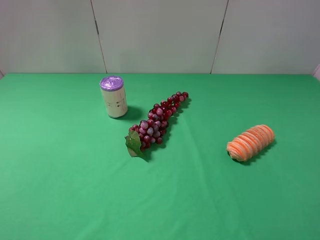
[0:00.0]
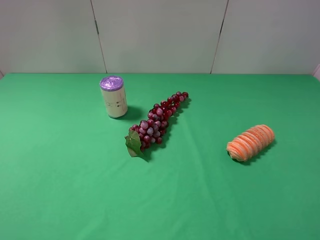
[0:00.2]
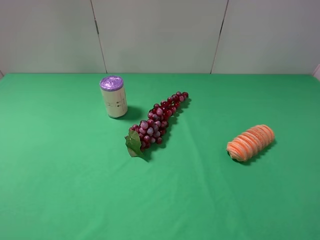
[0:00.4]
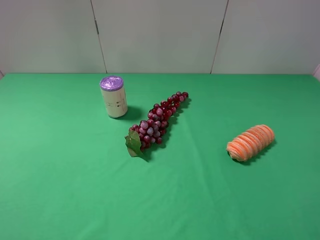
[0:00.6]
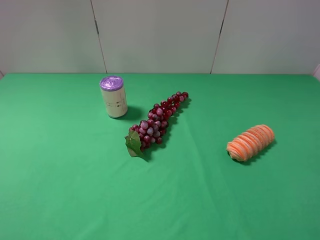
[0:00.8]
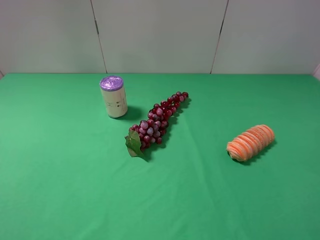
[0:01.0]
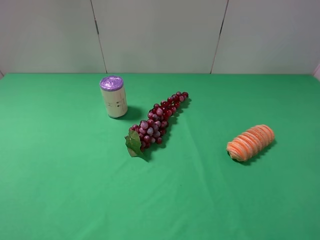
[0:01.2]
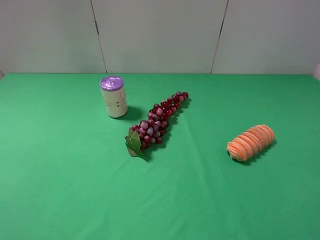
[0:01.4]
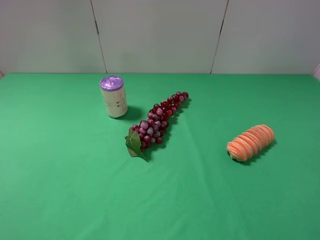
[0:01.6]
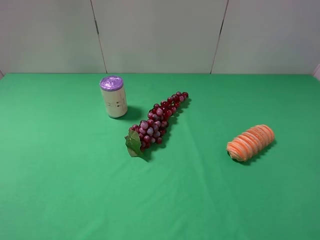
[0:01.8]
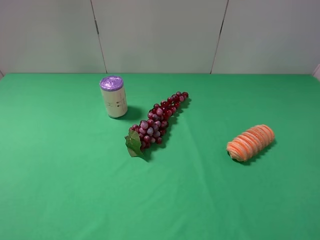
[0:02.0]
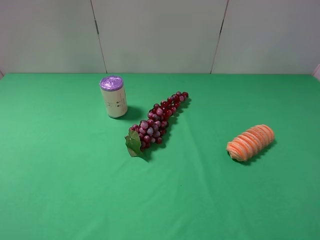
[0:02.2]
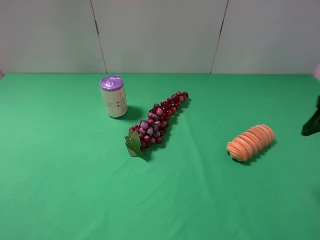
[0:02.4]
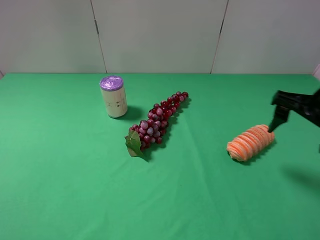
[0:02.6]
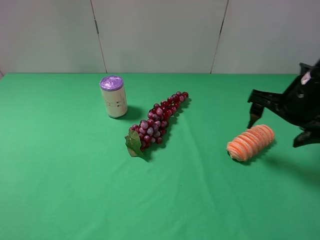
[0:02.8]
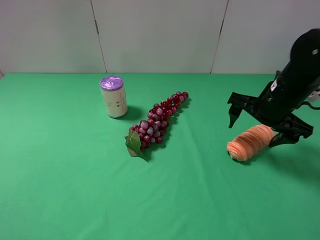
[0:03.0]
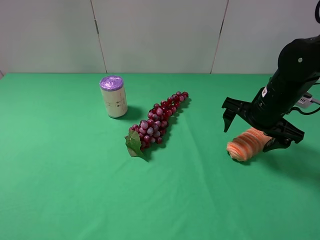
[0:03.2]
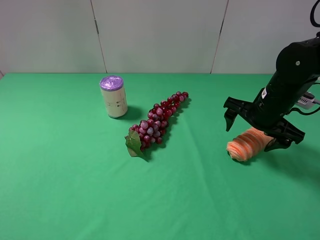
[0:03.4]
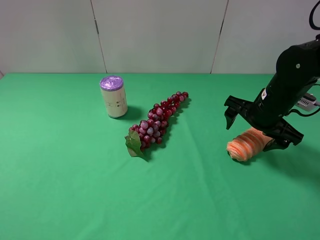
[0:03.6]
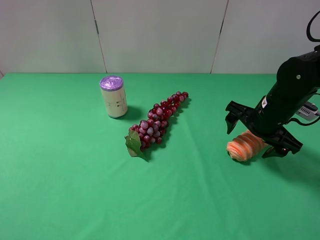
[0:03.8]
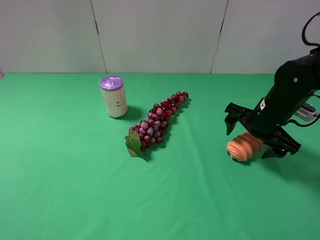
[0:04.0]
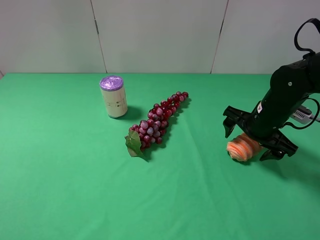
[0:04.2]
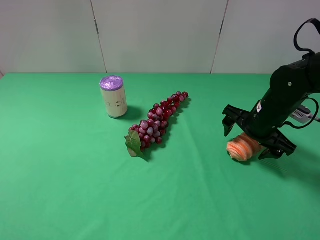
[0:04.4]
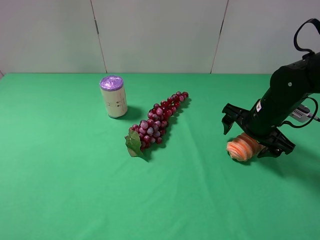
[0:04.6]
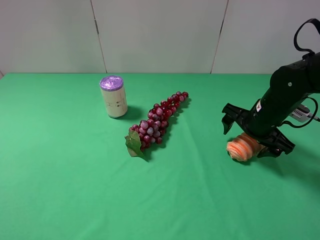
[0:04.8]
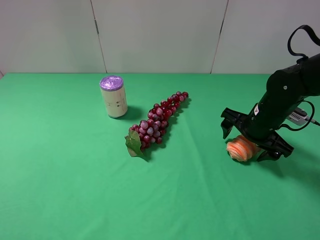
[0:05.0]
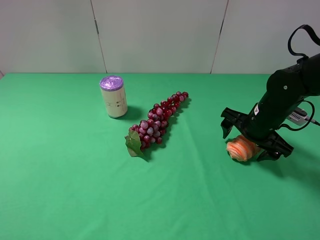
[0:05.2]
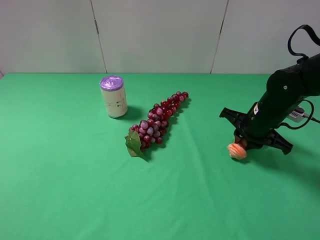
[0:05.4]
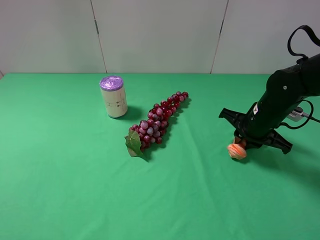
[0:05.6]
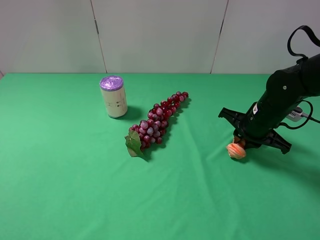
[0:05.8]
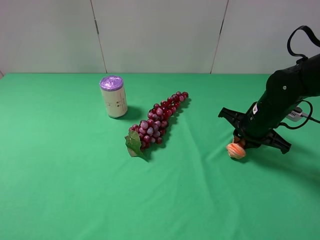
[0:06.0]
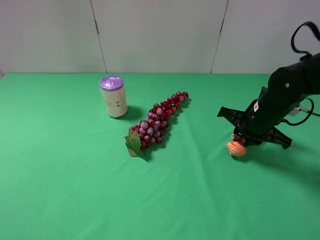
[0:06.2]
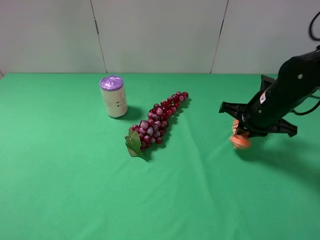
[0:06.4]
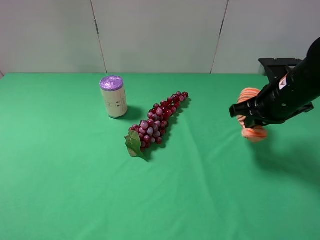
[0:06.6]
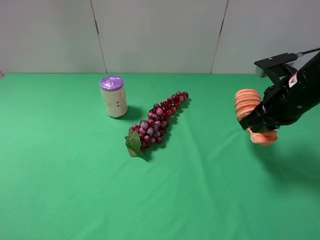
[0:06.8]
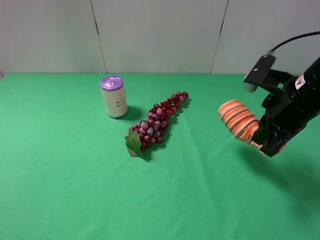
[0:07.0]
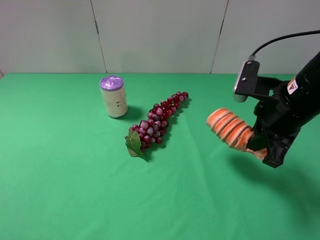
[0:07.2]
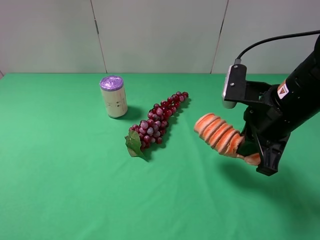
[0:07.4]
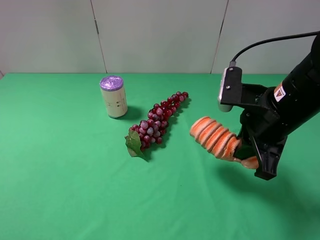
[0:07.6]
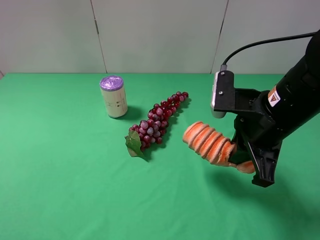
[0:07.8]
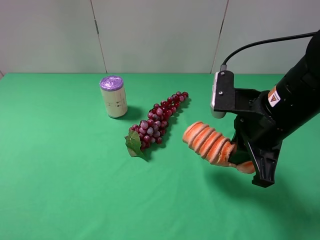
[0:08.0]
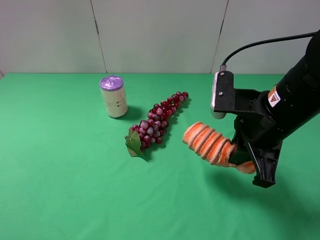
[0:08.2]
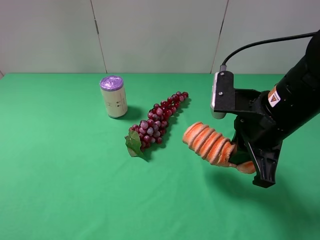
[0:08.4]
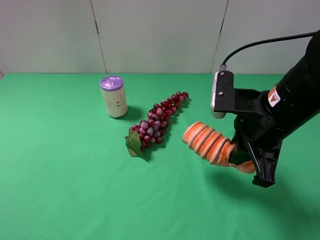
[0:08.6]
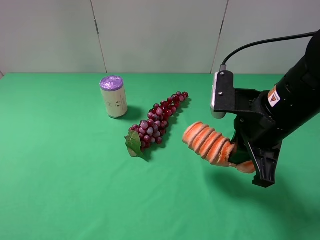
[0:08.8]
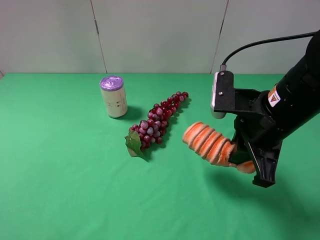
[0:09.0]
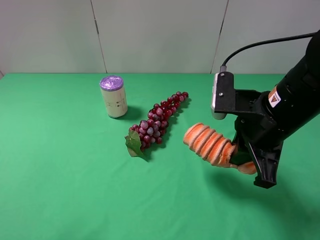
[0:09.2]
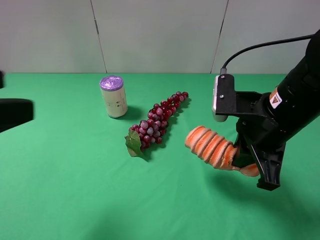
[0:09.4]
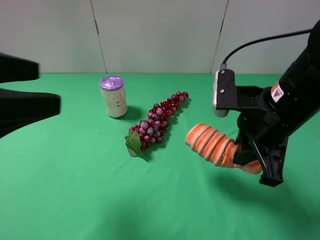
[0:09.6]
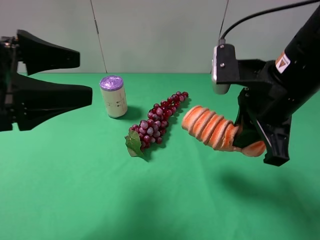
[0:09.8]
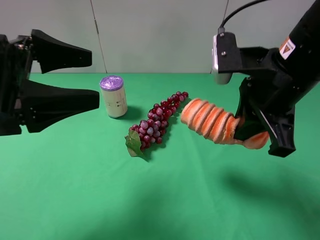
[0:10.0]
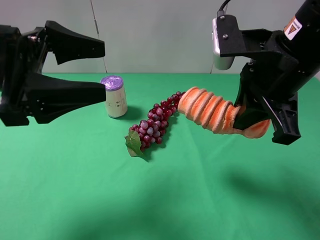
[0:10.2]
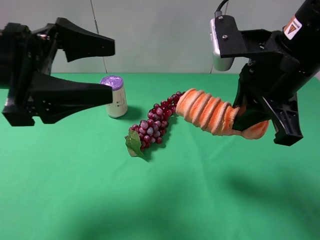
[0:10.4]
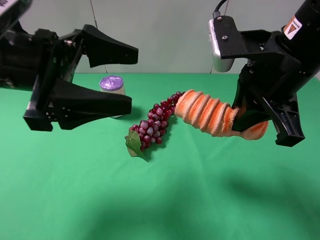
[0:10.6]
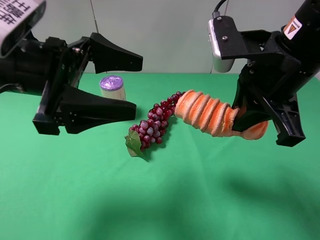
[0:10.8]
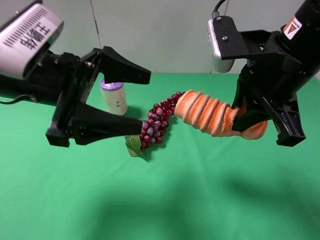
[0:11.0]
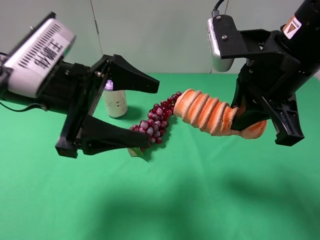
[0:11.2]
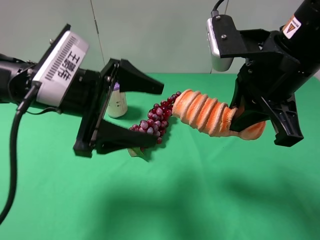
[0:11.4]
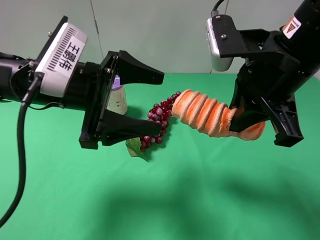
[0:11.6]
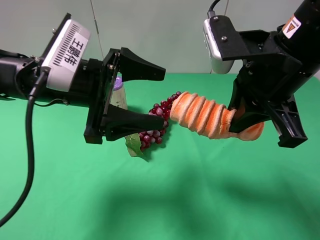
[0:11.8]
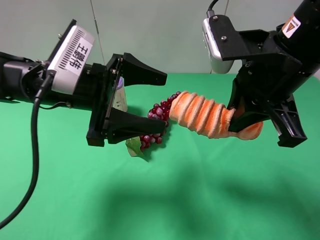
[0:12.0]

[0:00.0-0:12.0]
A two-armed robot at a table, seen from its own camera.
Task of the whole recording: use the right gripper to pick up the item and transfer it from the right gripper to the left gripper.
Step, 0:00.0 to 0:05.6: Use the right gripper to grab the bread on the right side of the table.
0:00.0 to 0:01.6: Neither gripper changes place.
0:01.6 to 0:03.0: The right gripper goes about 25 cm forward.
0:03.0 to 0:04.4: The grippers move only a little.
0:04.4 to 0:06.0: The right gripper closes.
0:06.0 to 0:07.6: The right gripper is displaced upward and backward by about 15 cm.
0:07.6 to 0:09.0: The grippers make only small movements.
0:09.0 to 0:10.4: The left gripper is displaced forward and to the right by roughly 20 cm. The right gripper shifts approximately 10 cm upward.
0:10.4 to 0:12.0: The left gripper heads to the right and downward, covering about 10 cm.

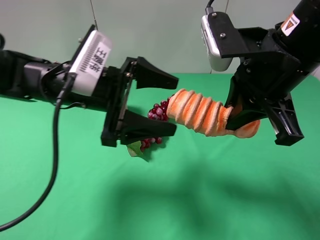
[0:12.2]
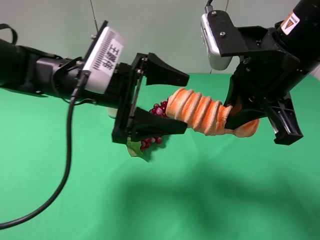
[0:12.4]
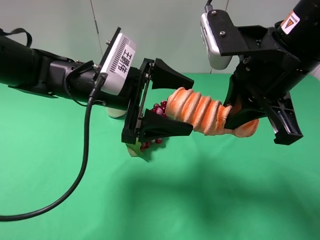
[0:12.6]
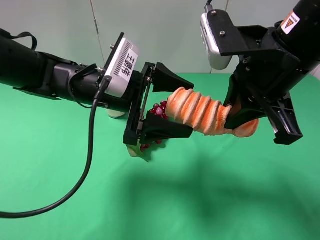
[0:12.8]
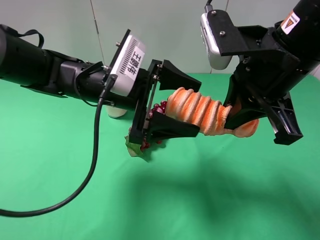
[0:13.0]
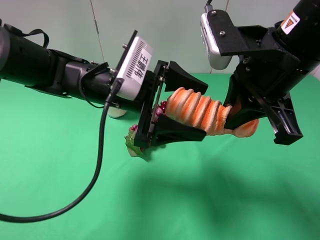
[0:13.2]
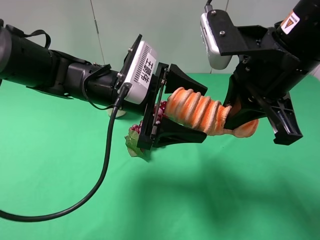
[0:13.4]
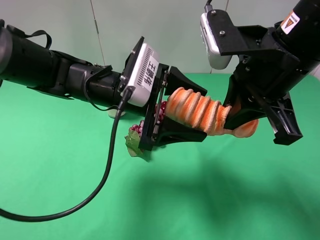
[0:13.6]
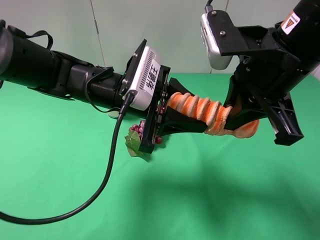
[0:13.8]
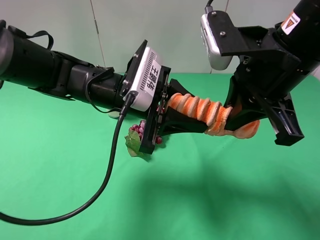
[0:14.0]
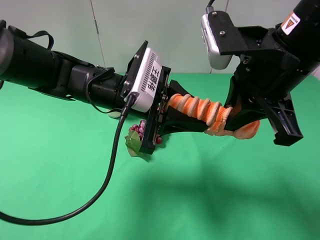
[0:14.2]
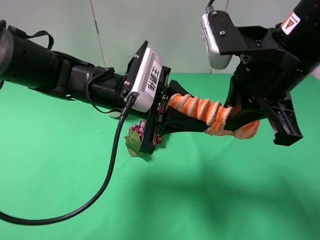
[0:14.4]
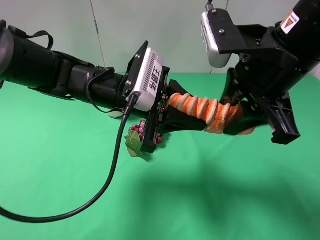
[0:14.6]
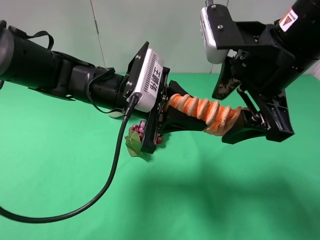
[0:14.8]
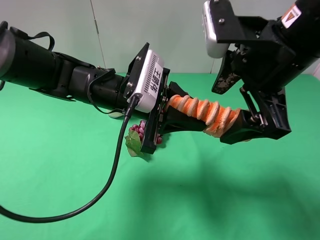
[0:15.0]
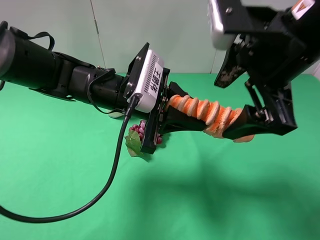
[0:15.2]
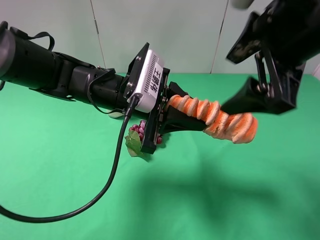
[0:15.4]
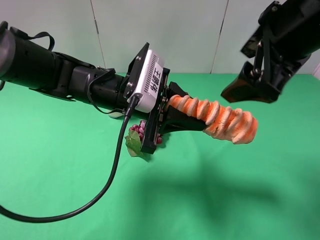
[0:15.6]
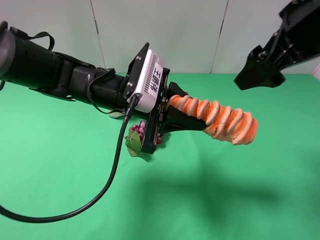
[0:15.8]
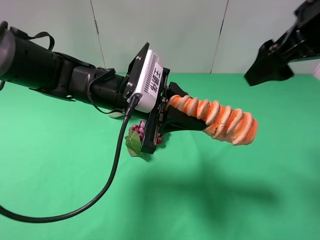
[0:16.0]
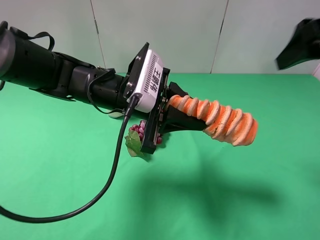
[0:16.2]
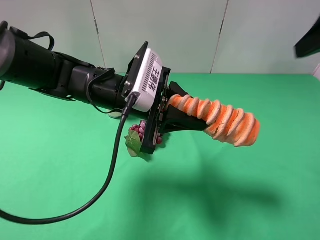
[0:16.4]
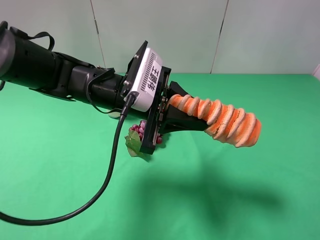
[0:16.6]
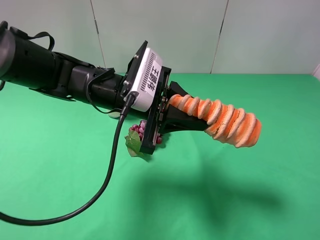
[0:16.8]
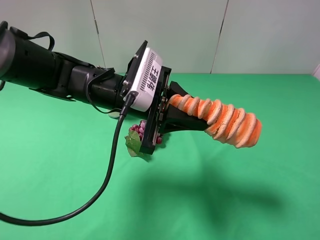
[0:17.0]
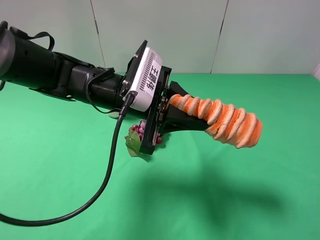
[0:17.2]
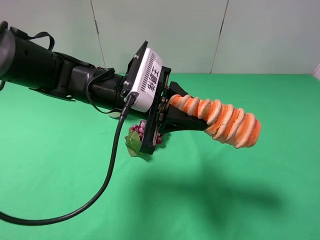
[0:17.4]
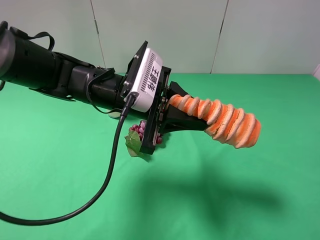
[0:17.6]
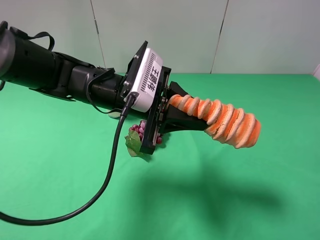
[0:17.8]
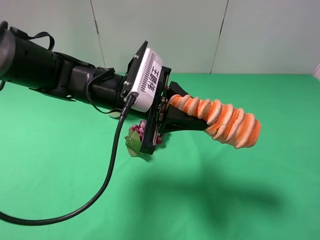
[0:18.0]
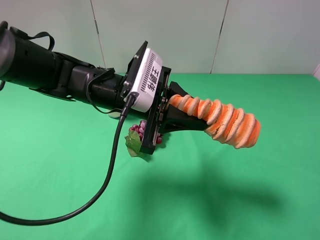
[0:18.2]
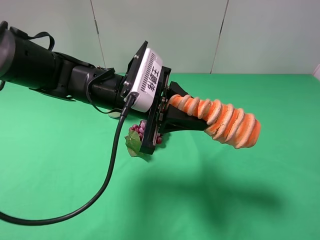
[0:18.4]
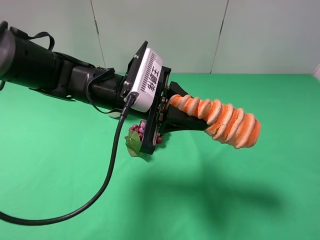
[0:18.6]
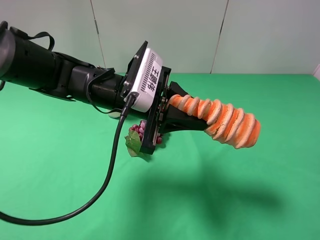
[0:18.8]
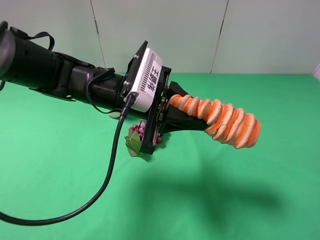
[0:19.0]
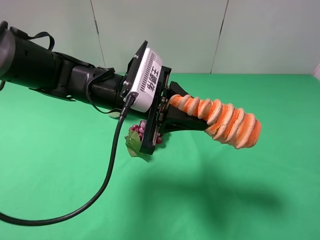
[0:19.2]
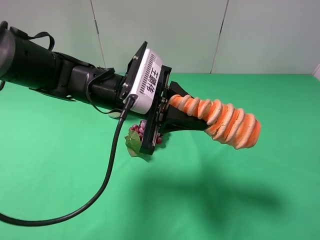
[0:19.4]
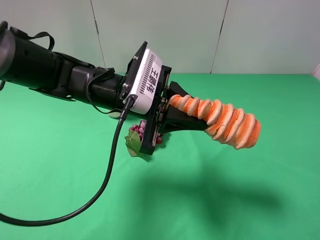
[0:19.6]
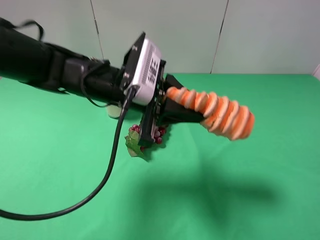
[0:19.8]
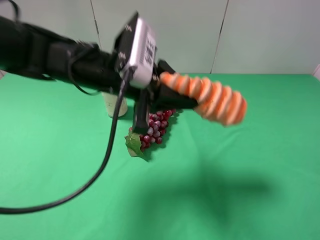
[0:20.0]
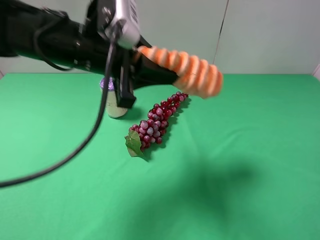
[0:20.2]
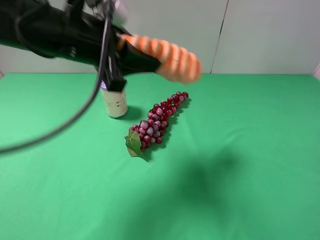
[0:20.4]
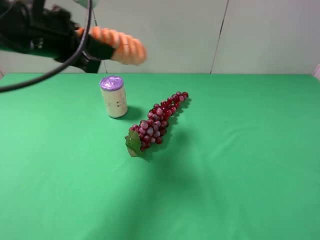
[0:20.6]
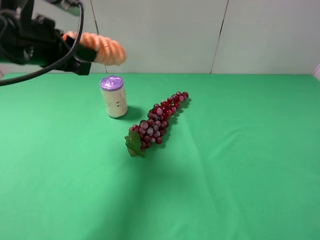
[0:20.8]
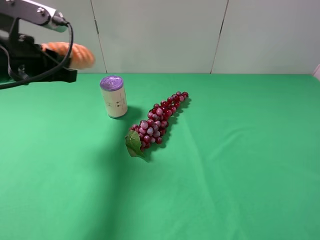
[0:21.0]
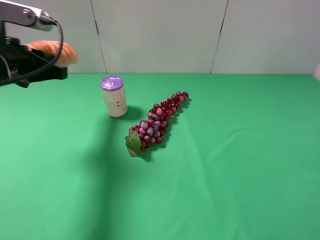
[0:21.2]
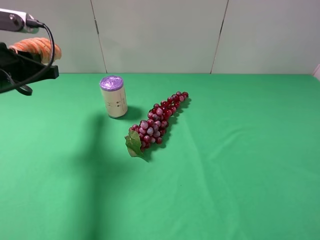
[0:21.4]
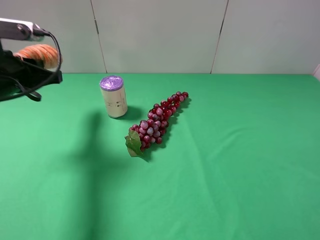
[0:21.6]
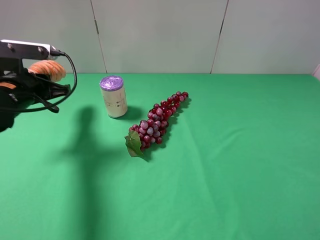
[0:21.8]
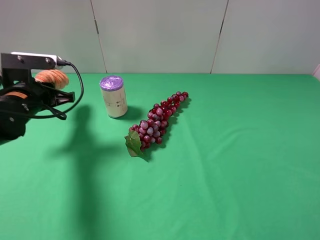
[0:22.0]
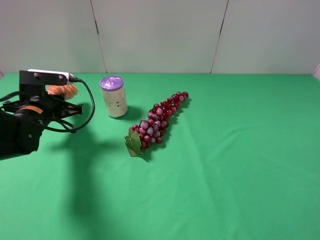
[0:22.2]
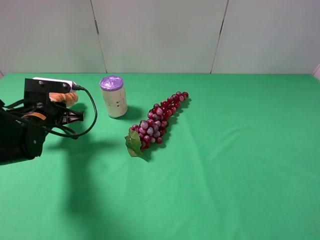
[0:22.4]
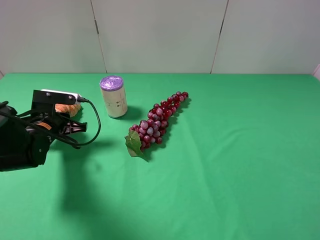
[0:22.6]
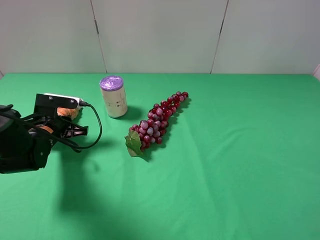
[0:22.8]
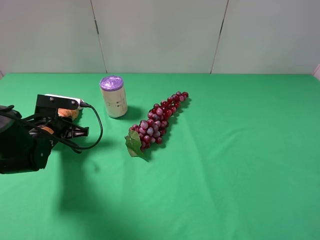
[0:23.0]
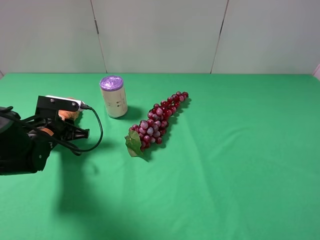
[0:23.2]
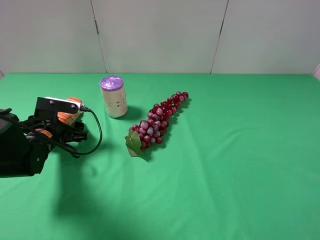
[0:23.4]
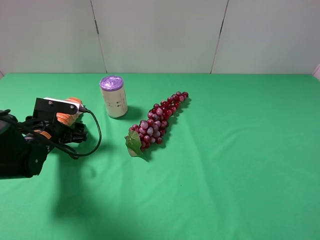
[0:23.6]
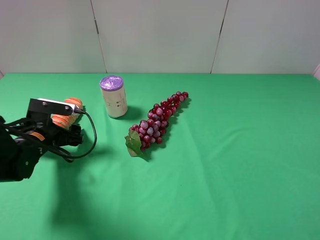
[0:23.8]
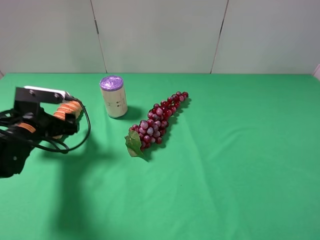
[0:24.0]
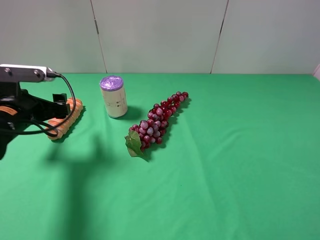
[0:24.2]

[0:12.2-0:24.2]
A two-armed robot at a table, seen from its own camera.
Task of the whole recording: use the right gripper to pick up the item and transfer it from the right gripper to the left gripper.
Step, 0:12.2 to 0:15.0: Pass the bread to the left gripper.
Step, 0:15.2 to 0:23.8: The left gripper places bread on the left side of the table.
0:12.2 to 0:13.8: The left gripper moves about 5 cm, and closes its fingers.
0:13.8 to 0:15.2: The right gripper opens.
0:15.2 to 0:16.6: The right gripper goes some 15 cm to the right, backward and upward.
0:18.2 to 0:19.8: The grippers stay close to where they were, moving slightly.
0:19.8 to 0:21.2: The left gripper is displaced to the left by approximately 20 cm.
0:21.2 to 0:22.6: The left gripper moves downward, approximately 15 cm.
0:22.6 to 0:24.2: The left gripper is displaced upward by roughly 10 cm, and opens up.
